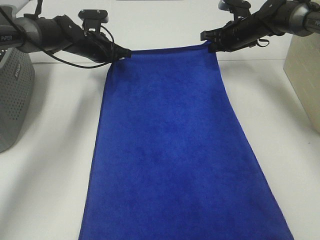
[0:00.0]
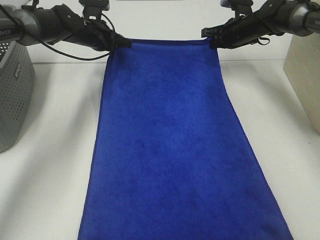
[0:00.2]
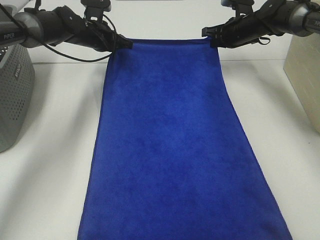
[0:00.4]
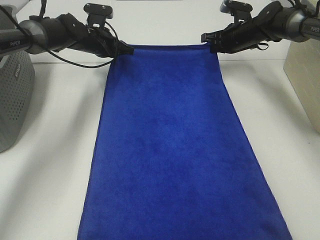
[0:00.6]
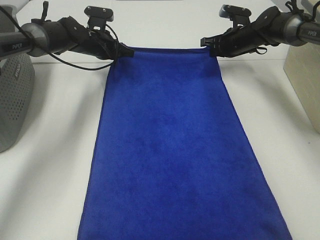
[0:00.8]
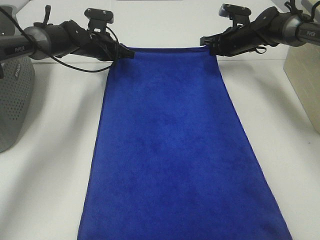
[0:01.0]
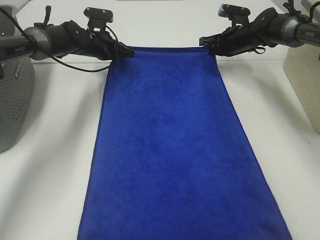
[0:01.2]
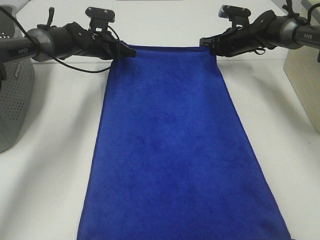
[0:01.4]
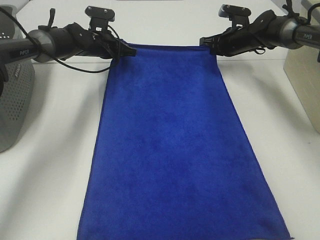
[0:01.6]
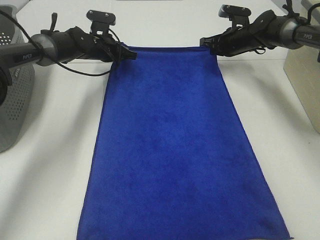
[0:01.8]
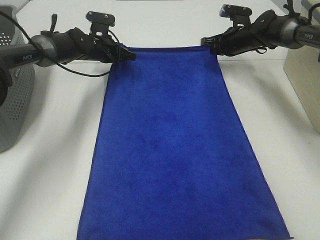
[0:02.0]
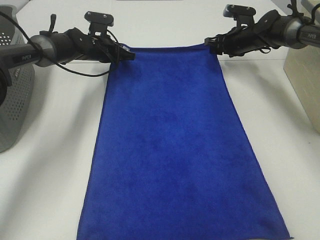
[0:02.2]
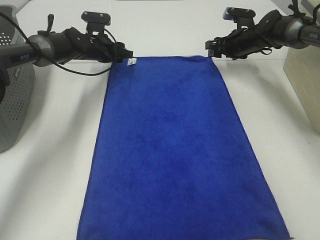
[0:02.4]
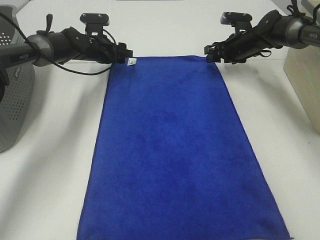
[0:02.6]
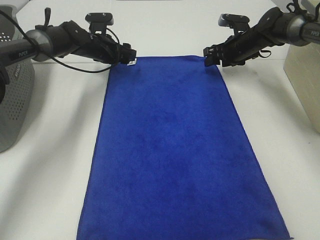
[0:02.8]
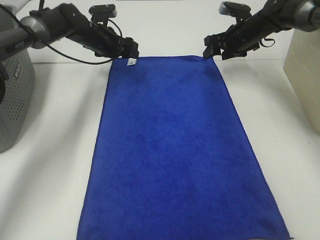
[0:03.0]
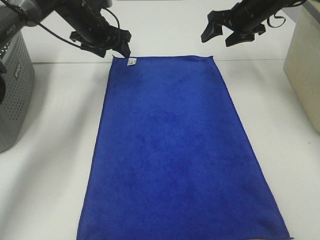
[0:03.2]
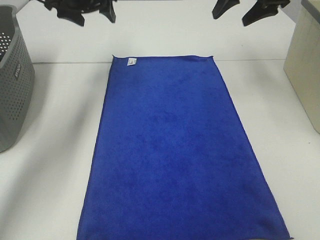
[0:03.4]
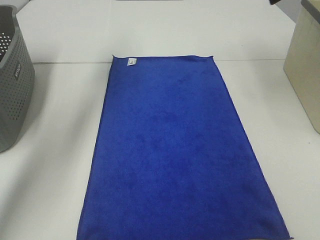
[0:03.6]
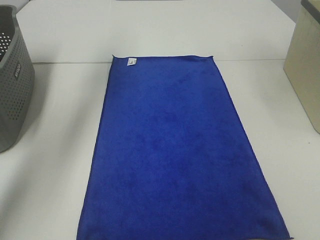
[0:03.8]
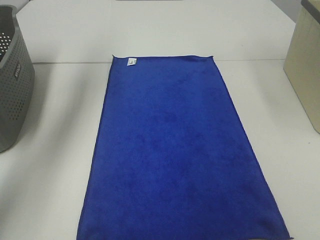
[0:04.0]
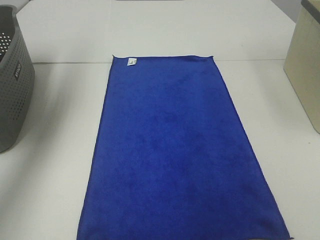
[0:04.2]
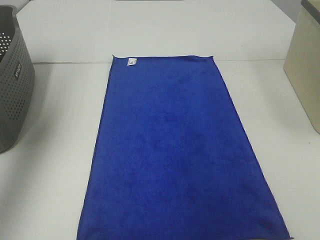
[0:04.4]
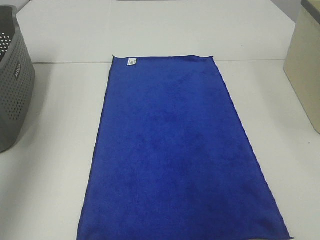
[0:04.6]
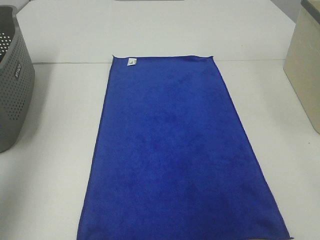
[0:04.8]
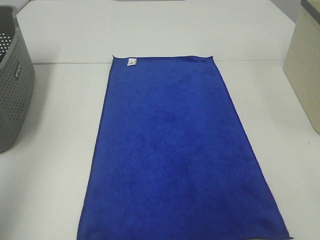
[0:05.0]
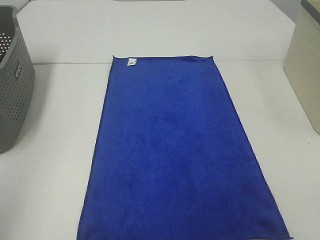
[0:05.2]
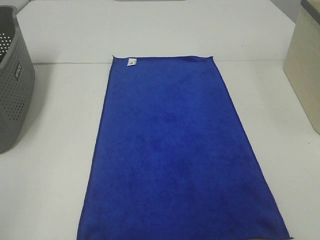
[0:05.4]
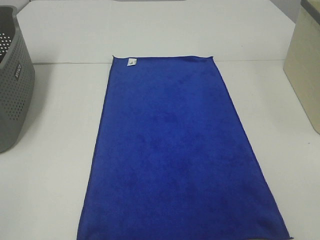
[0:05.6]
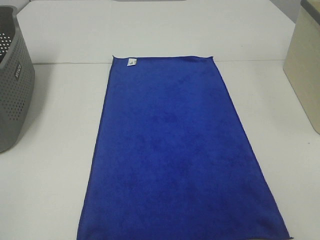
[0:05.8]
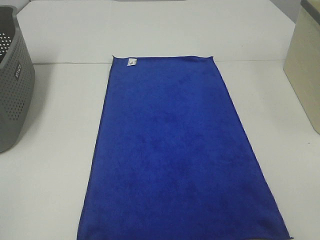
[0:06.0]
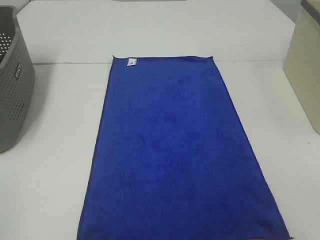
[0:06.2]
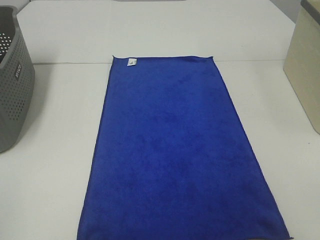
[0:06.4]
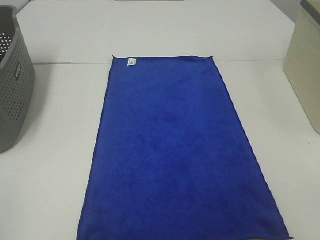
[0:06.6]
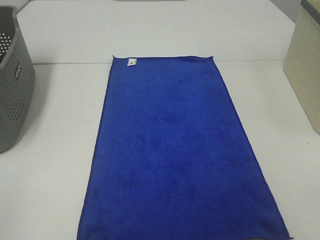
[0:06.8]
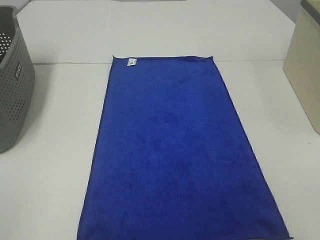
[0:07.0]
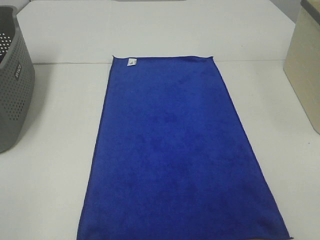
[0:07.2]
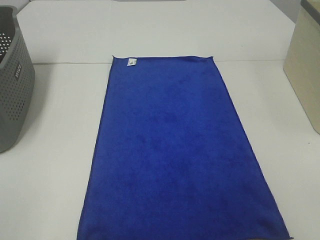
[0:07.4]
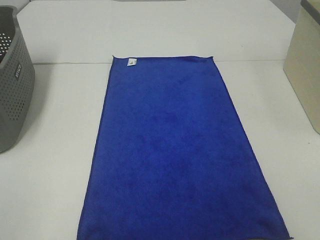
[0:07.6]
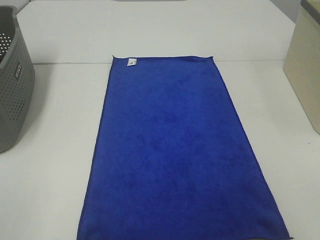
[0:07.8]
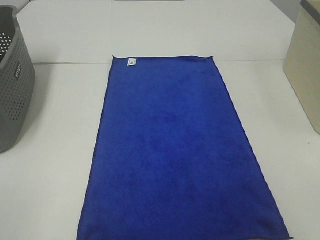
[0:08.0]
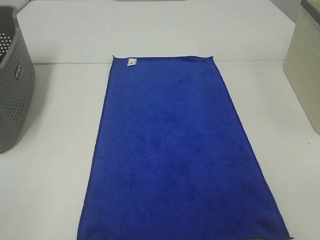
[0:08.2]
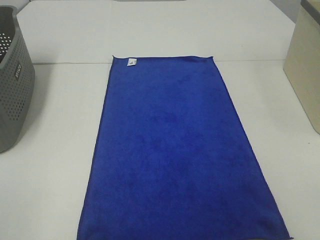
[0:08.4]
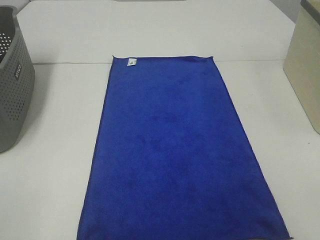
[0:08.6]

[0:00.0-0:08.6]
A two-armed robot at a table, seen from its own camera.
Task of the whole recording: Remove the towel and place it.
0:00.0 to 0:01.4: The grippers move only a little.
0:01.4 to 0:02.8: The left gripper opens. The right gripper opens.
0:02.8 to 0:04.4: The left gripper is displaced upward, backward and to the left by some 50 cm. Meanwhile the right gripper is displaced upward and backward by some 40 cm.
0:04.4 to 0:05.8: The left gripper moves backward and downward, about 40 cm.
0:07.2 to 0:08.6: Neither gripper changes place.

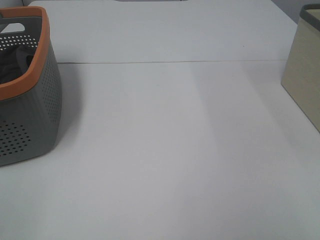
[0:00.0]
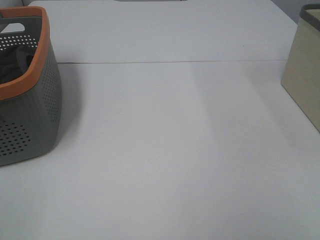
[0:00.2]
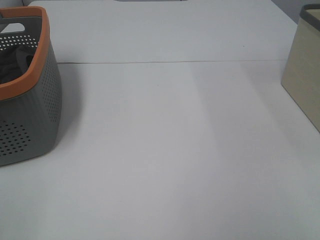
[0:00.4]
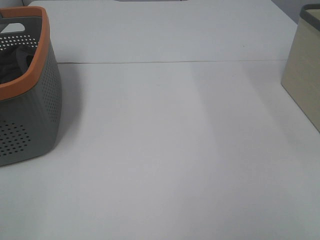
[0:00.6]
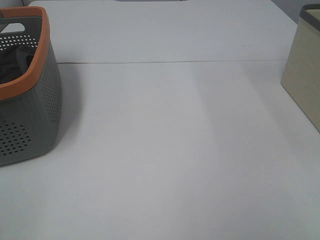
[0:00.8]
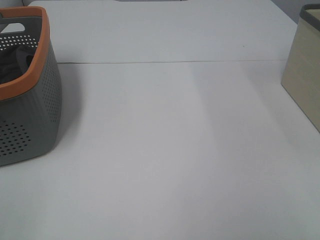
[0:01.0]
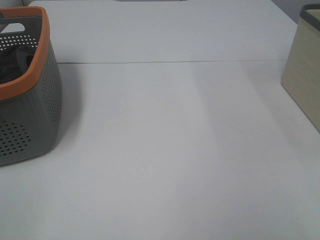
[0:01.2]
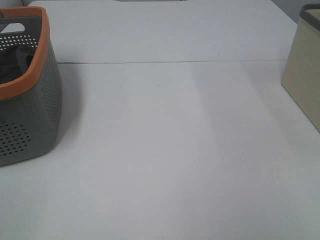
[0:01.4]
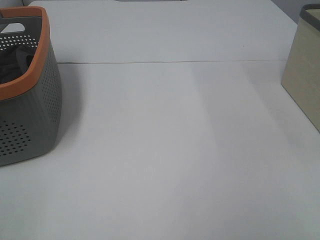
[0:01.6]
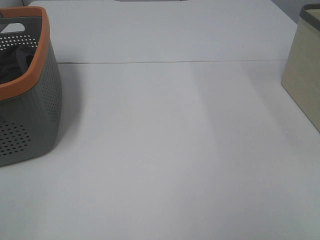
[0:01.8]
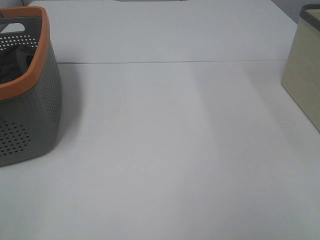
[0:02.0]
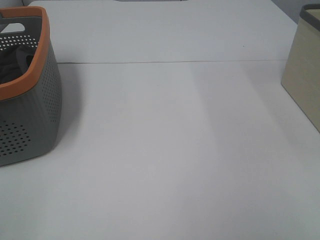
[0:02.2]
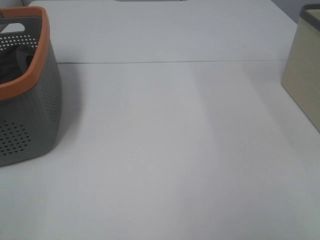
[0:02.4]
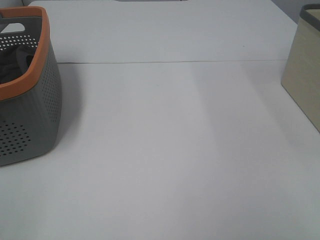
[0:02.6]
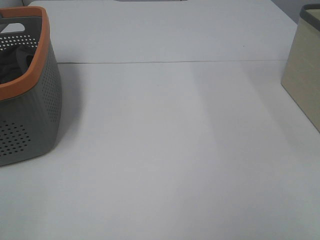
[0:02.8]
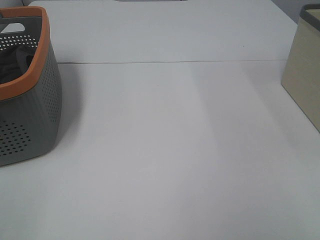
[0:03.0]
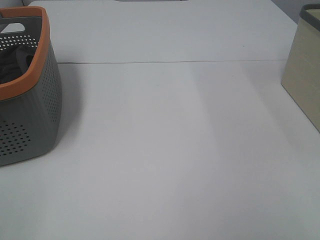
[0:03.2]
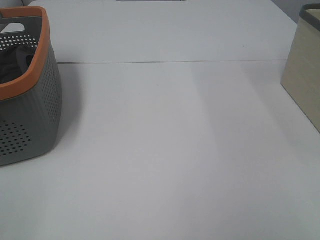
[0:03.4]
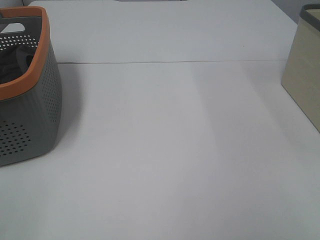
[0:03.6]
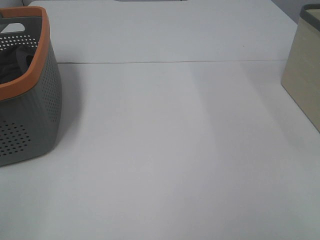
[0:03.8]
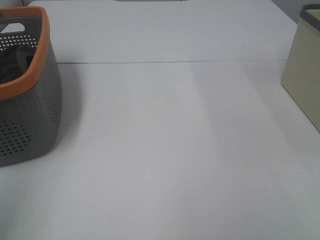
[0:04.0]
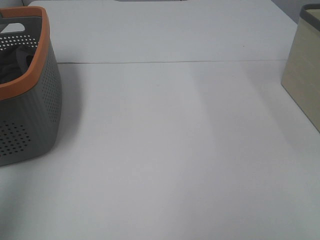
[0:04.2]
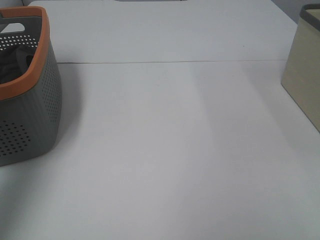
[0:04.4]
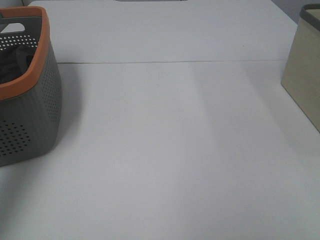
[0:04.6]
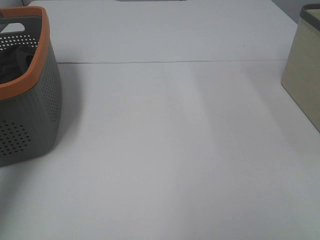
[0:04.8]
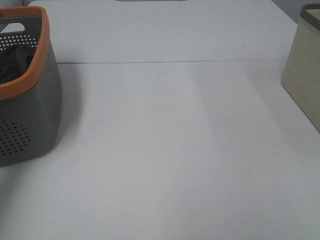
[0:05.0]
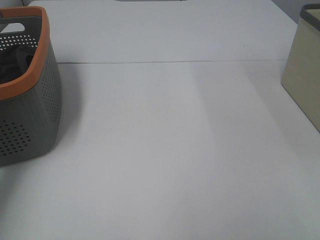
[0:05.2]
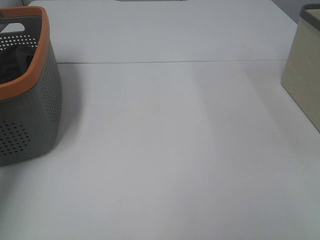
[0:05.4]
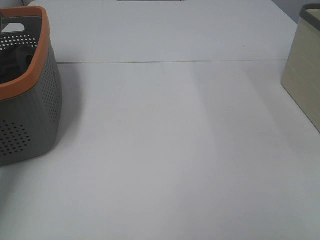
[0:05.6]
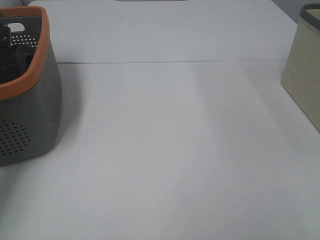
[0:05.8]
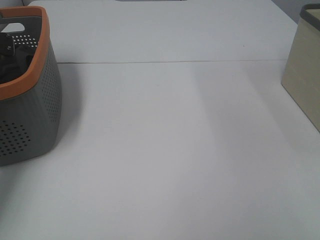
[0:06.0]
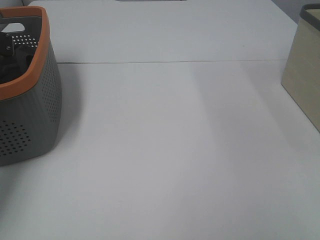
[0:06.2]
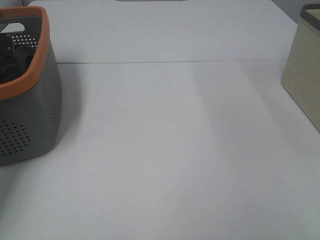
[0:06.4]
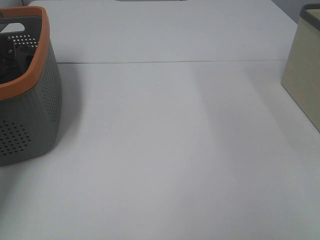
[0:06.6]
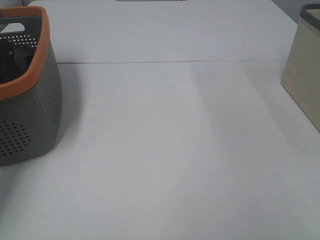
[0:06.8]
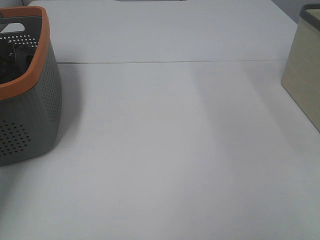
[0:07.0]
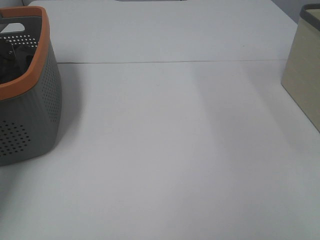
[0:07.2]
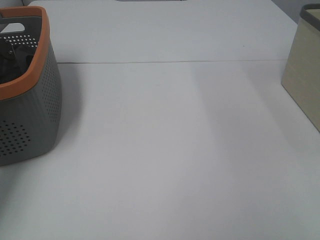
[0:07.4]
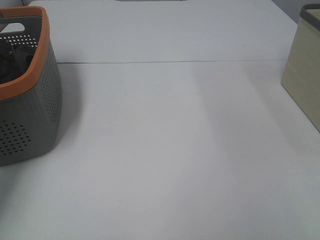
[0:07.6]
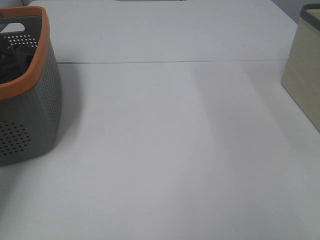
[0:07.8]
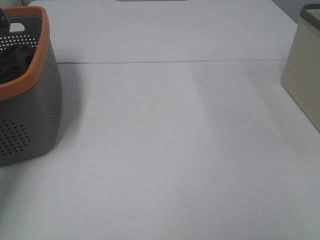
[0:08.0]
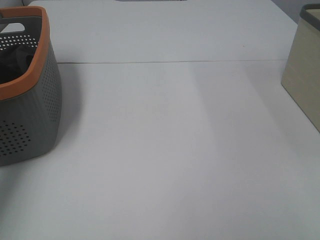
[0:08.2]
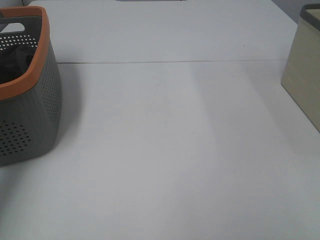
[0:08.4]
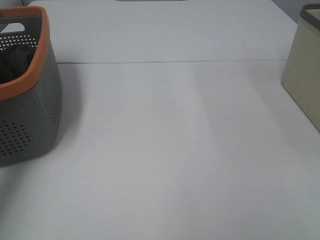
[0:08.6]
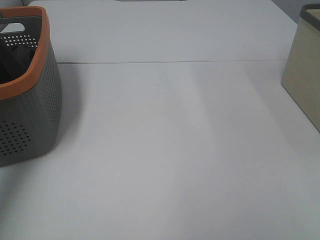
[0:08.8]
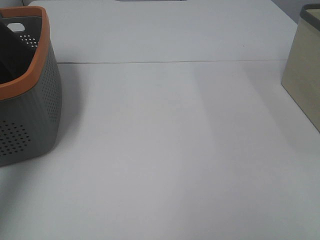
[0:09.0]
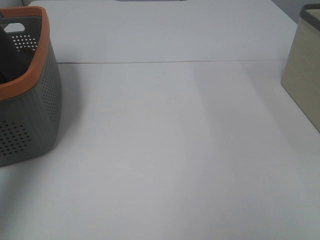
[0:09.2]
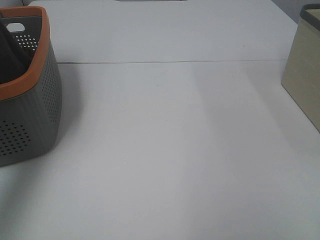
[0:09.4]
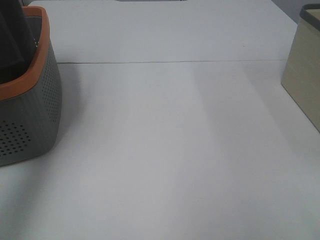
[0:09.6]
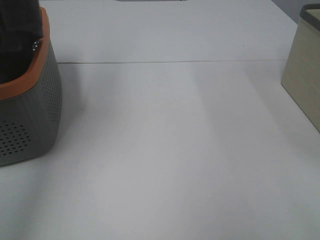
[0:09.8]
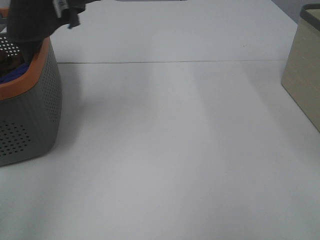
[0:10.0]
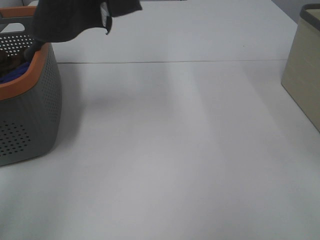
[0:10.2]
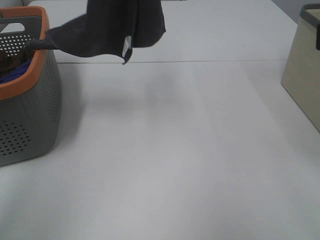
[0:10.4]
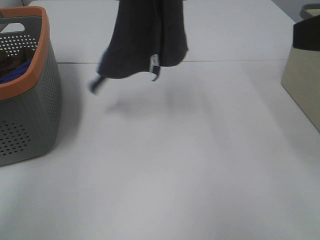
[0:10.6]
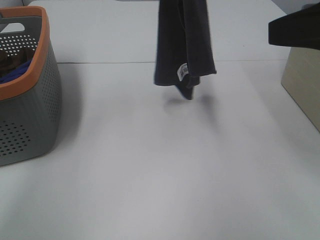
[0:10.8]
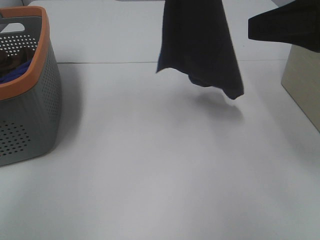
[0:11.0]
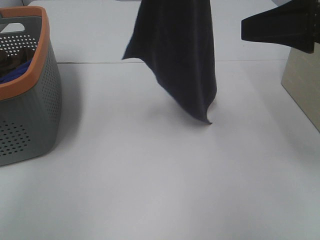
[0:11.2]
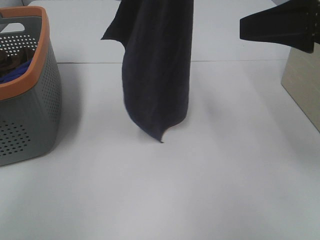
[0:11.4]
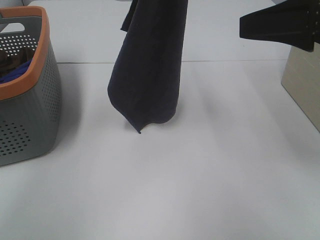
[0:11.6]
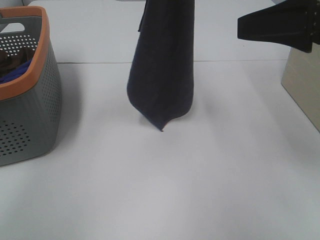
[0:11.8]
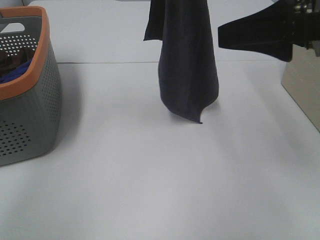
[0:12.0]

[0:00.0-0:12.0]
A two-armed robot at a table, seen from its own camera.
Task of the whole recording: Remove the towel and place it.
0:00.0 to 0:03.0: Both grippers stay about where they are.
0:03.0 to 0:04.4: The left gripper shifts roughly 25 cm forward and upward.
0:04.4 to 0:06.0: The left gripper heads downward and forward, covering roughly 35 cm.
0:09.0 to 0:10.4: The right gripper moves forward and upward, approximately 15 cm; the left gripper heads to the right, covering some 20 cm.
0:10.4 to 0:12.0: The left gripper heads to the right, covering approximately 5 cm. Meanwhile the right gripper heads forward, covering roughly 10 cm.

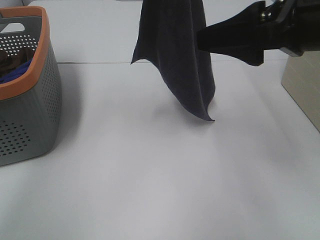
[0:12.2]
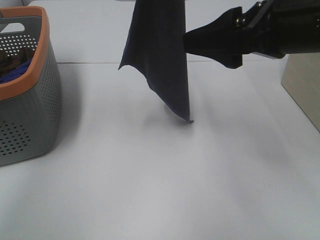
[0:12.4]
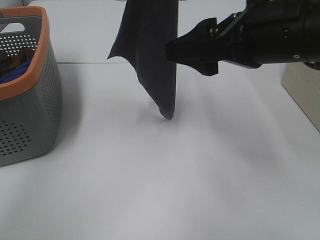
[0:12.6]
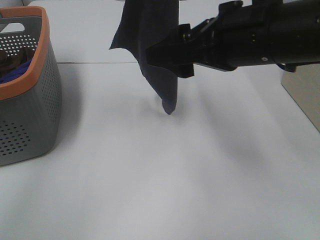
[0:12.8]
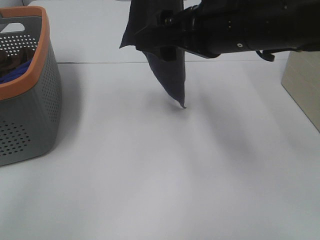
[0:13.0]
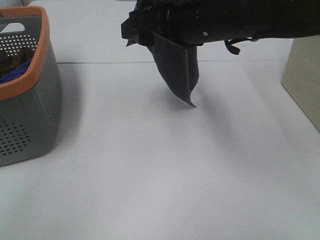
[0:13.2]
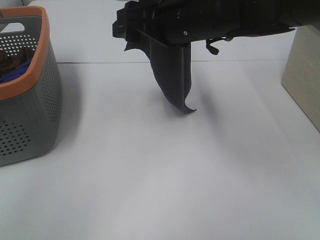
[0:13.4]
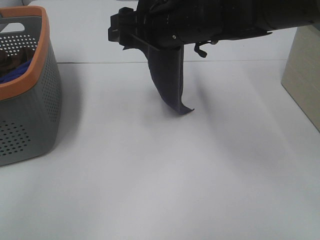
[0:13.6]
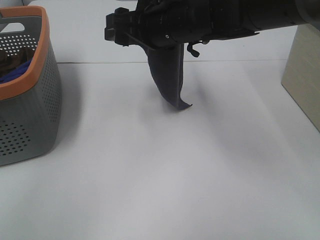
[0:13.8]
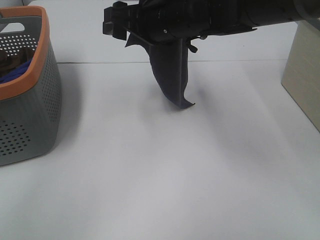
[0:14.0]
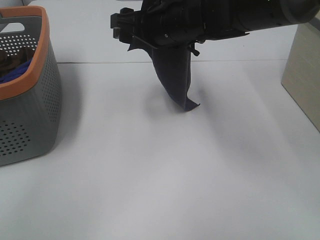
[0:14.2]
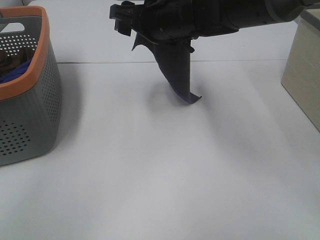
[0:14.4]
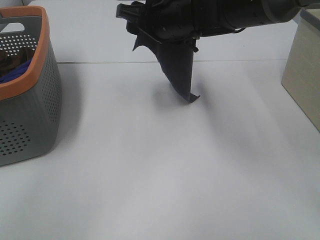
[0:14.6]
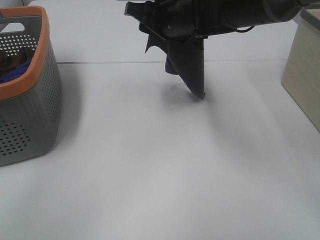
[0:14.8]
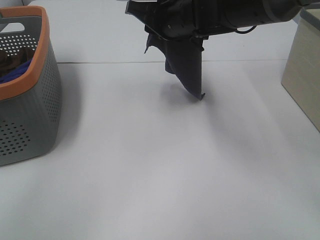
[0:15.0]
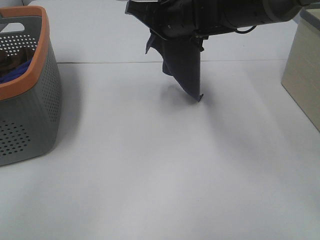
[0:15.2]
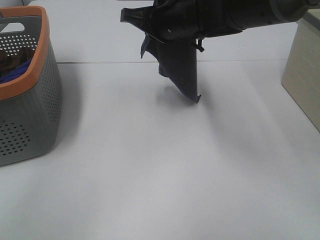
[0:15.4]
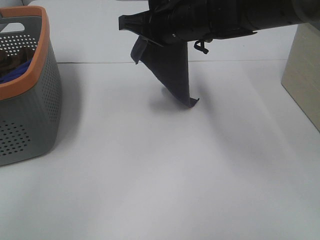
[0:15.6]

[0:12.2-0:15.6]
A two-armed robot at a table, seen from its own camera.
Task of the whole recording: Remove the towel and place it.
Step, 0:12.2 to 0:15.0: Right hand: grab a corner of the grey towel and straighten it.
0:12.2 to 0:13.8: The right gripper travels to the left, forward and downward by approximately 20 cm.
0:13.8 to 0:15.6: The right gripper closes.
